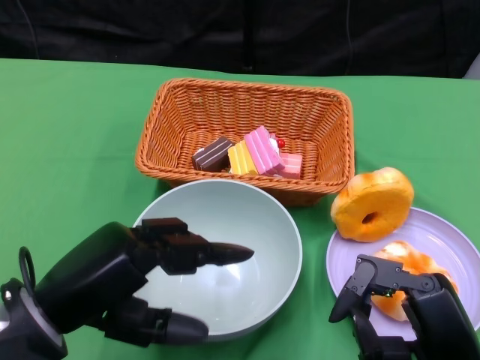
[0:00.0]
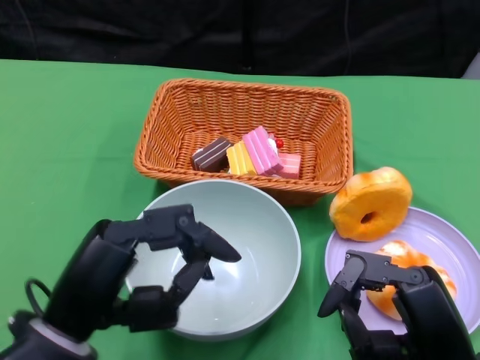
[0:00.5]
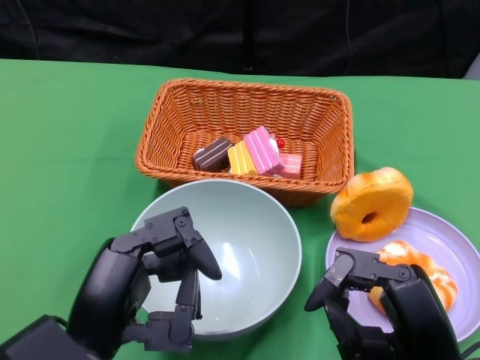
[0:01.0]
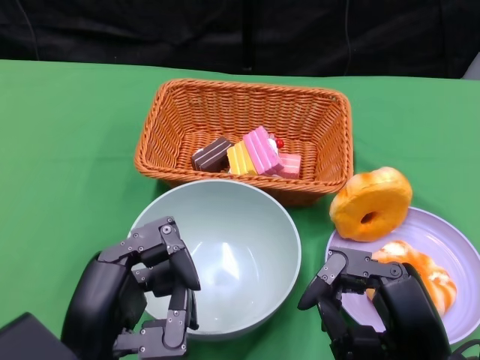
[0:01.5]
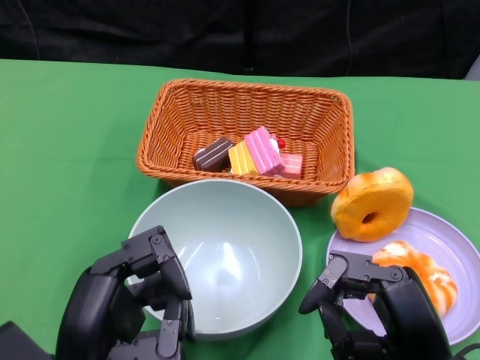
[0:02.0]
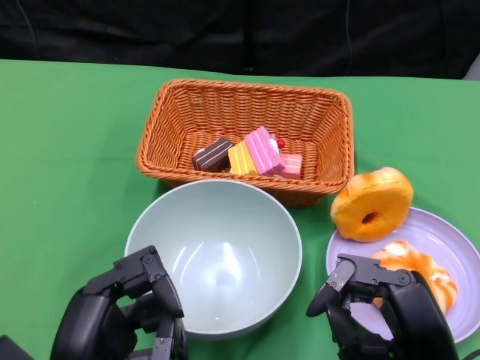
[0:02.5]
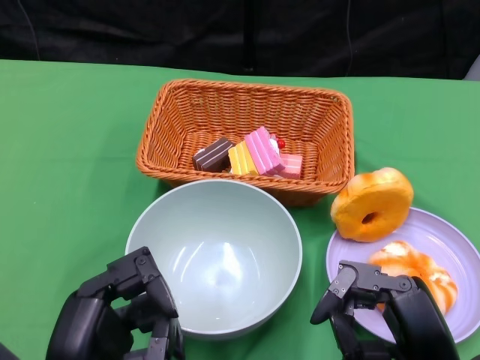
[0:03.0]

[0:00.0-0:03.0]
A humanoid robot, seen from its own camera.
0:00.0 to 0:01.5: The left hand changes place by approximately 5 cm.
0:01.5 to 0:03.0: The hands move only a little.

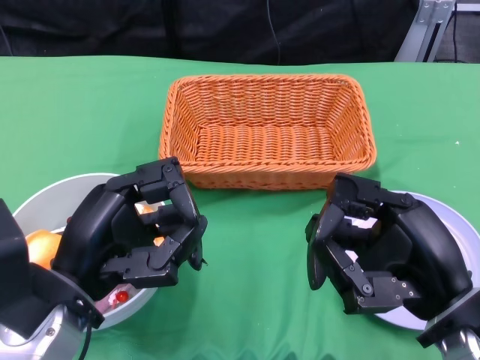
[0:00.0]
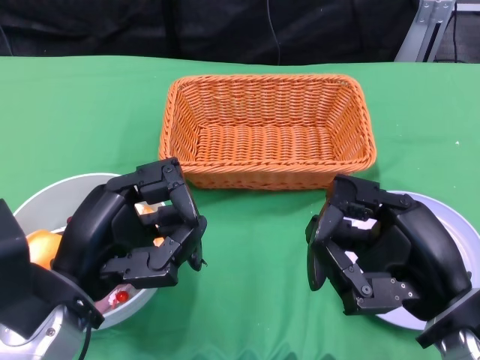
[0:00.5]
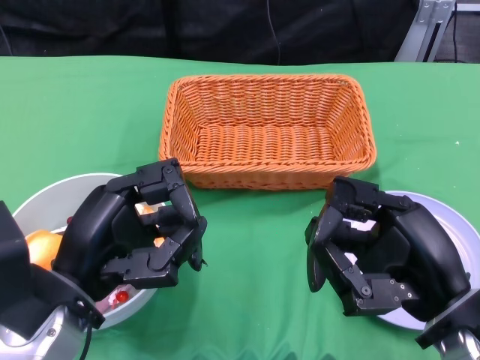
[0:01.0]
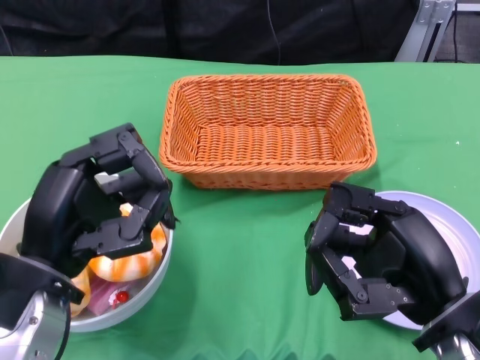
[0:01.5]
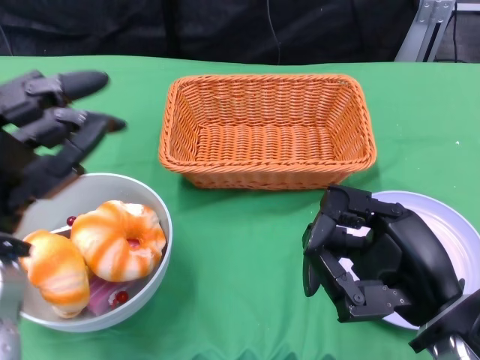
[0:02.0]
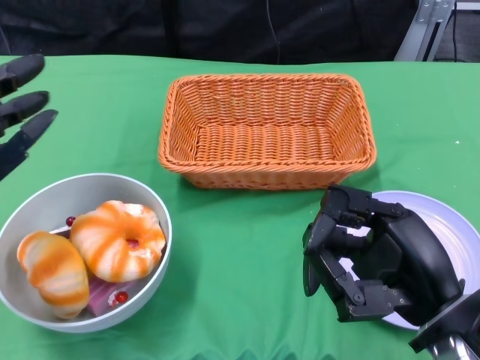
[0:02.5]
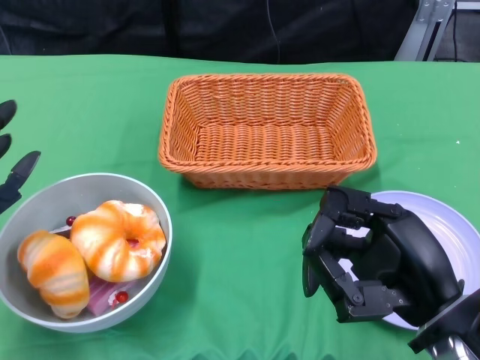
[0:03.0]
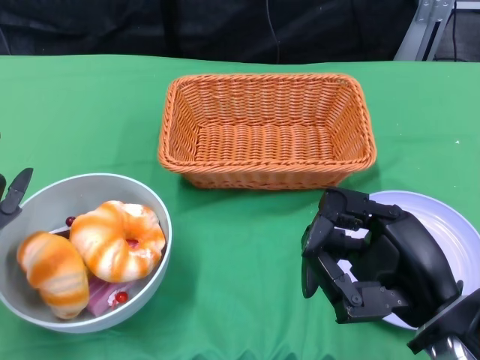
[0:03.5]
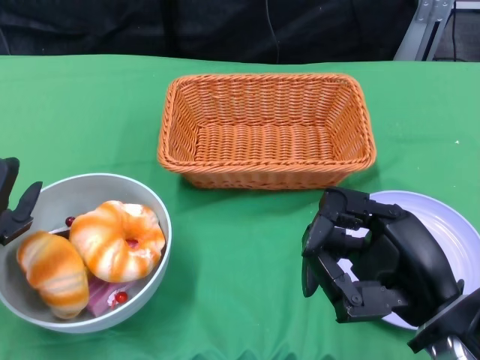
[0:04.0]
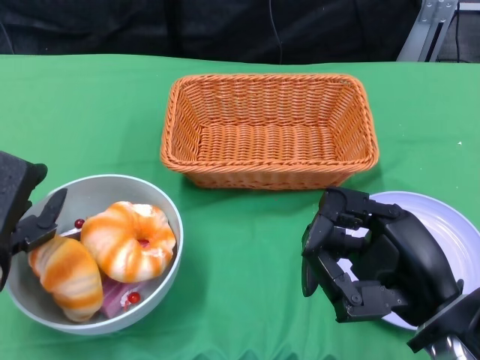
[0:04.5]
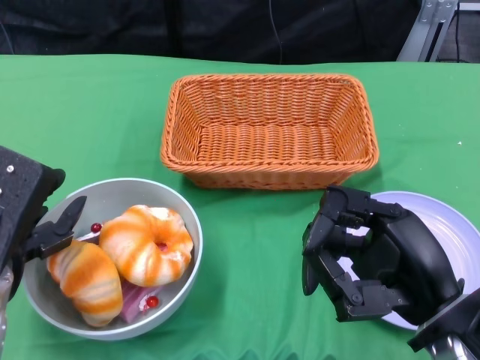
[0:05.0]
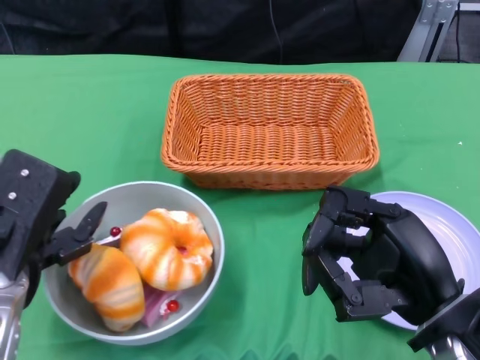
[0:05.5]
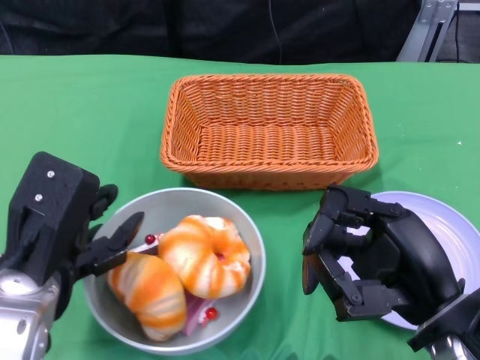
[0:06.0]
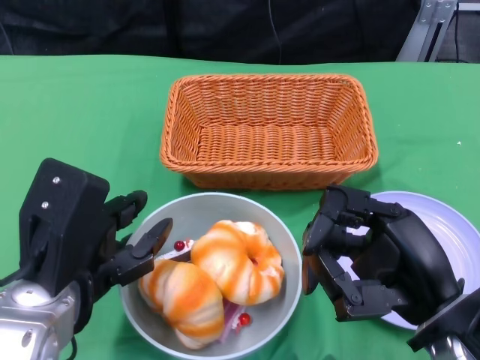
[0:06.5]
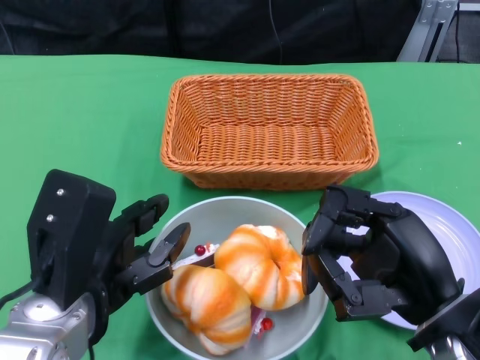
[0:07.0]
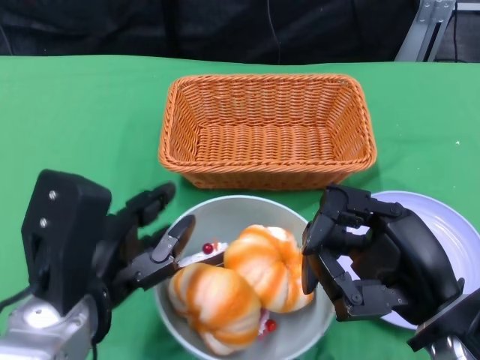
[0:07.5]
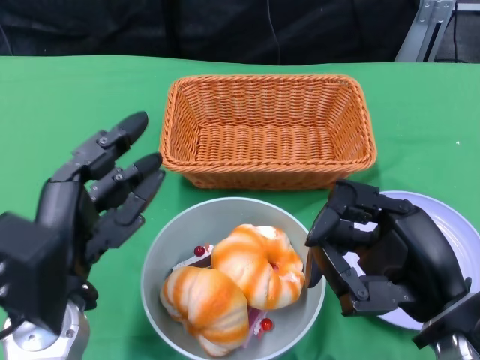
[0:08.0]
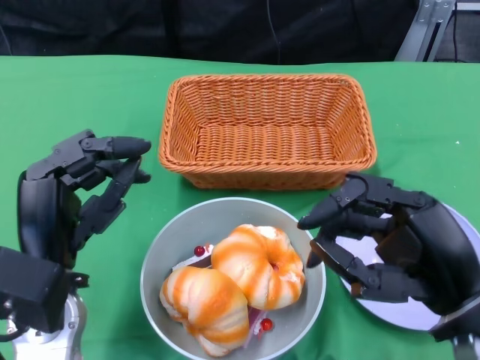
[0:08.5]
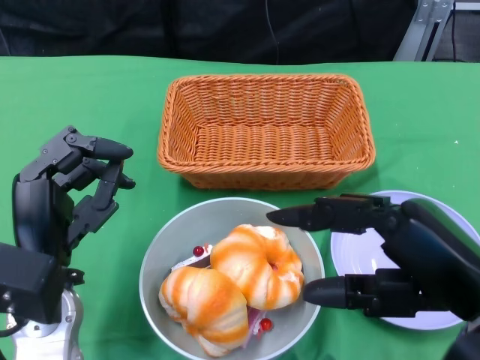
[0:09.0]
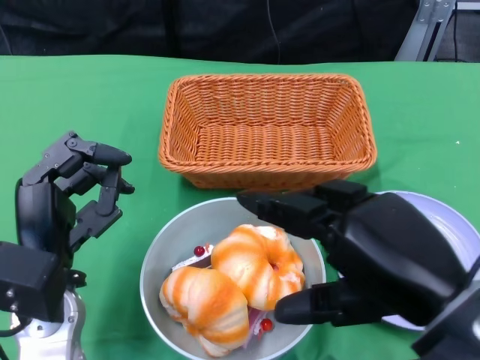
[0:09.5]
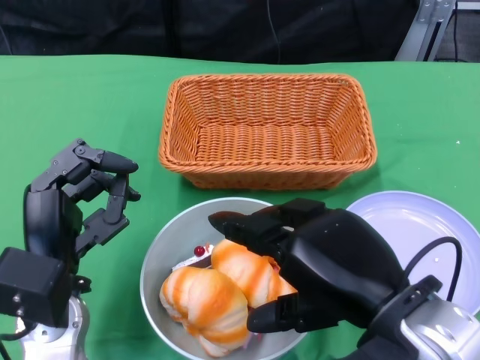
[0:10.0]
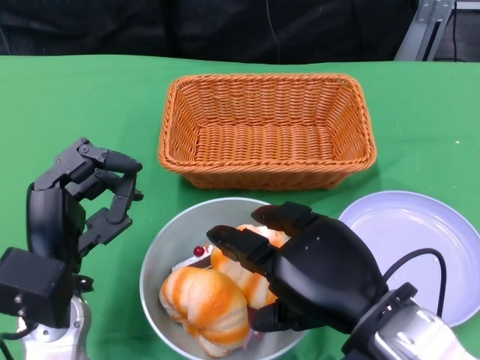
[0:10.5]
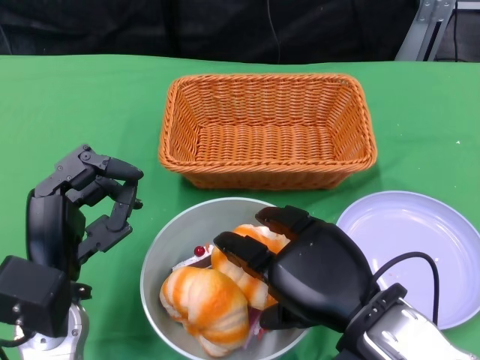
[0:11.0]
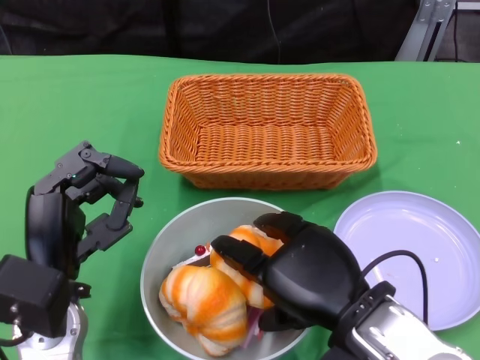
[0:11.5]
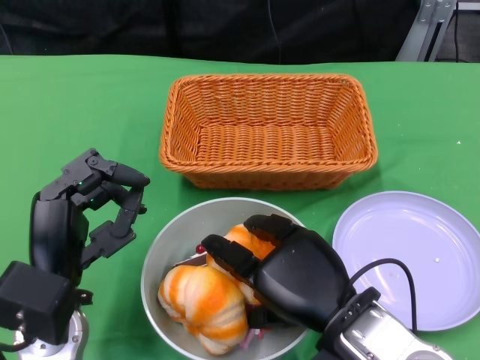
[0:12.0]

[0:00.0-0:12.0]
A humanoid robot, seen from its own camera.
Step, 0:00.0 to 0:08.0: Push the bowl to the center of the table using the left gripper.
0:02.0 to 0:04.0: The left hand shifts some 5 cm downward.
0:04.0 to 0:06.0: The left hand heads to the right, covering about 5 cm.
0:08.0 to 0:10.0: The right hand shifts by roughly 5 cm. Meanwhile the left hand is displaced downward by some 5 cm.
0:10.0 to 0:12.0: The right hand is displaced downward by roughly 10 cm.

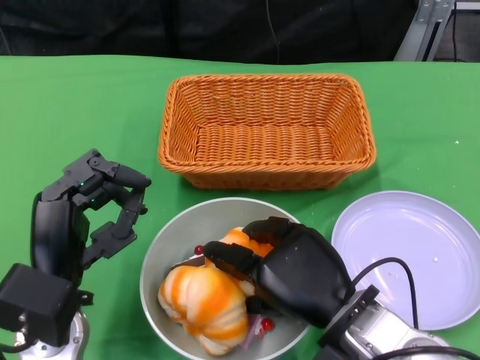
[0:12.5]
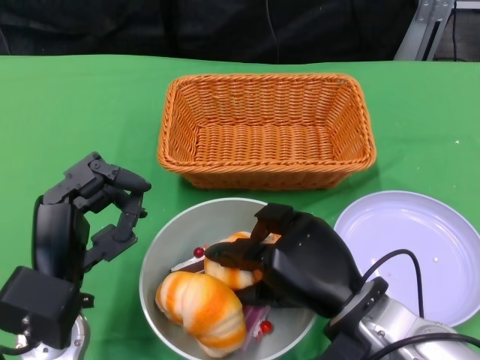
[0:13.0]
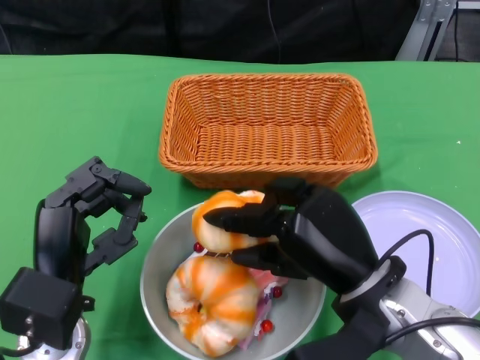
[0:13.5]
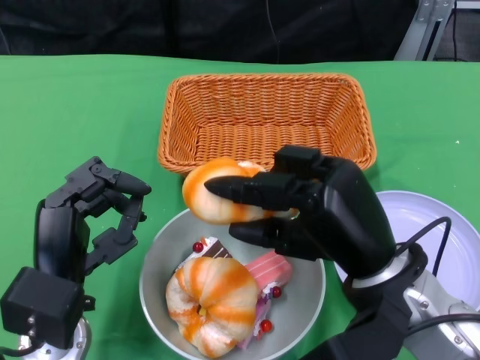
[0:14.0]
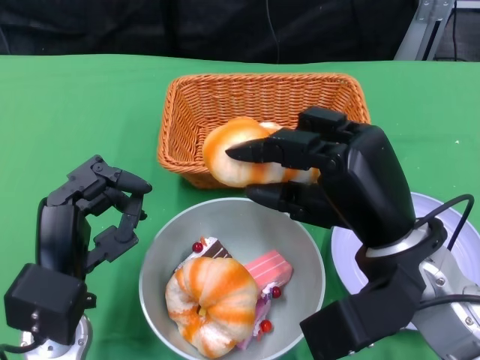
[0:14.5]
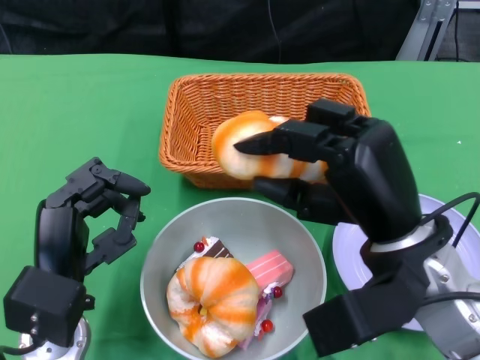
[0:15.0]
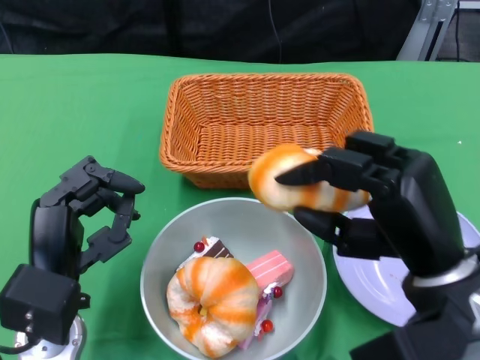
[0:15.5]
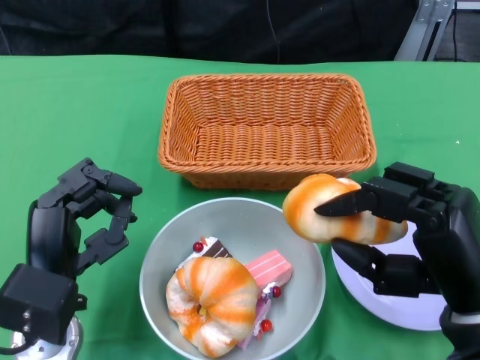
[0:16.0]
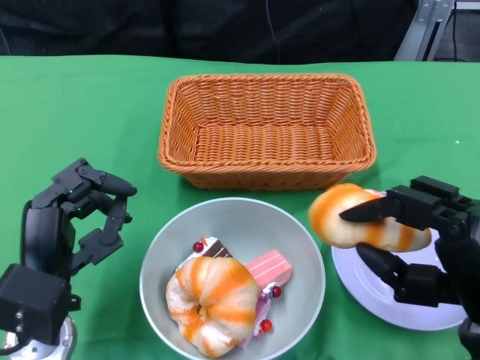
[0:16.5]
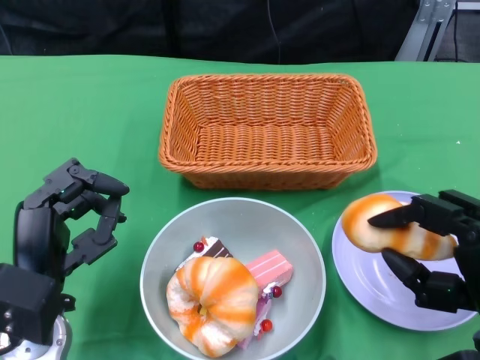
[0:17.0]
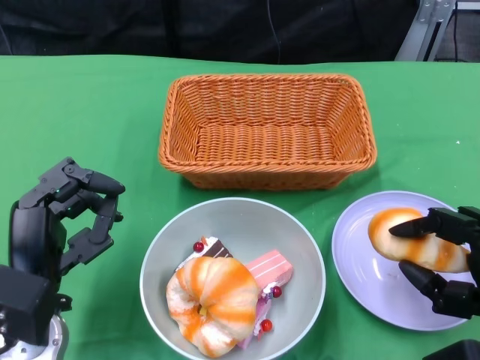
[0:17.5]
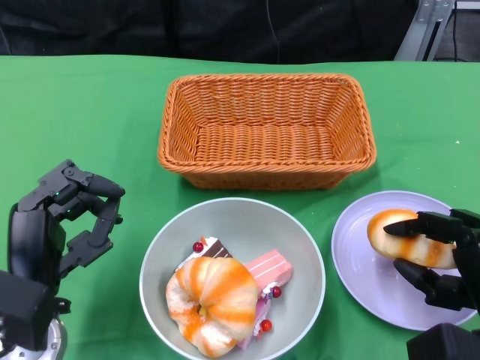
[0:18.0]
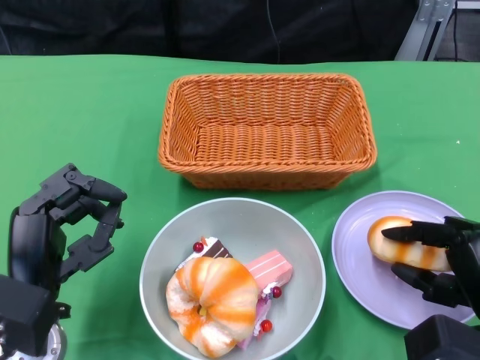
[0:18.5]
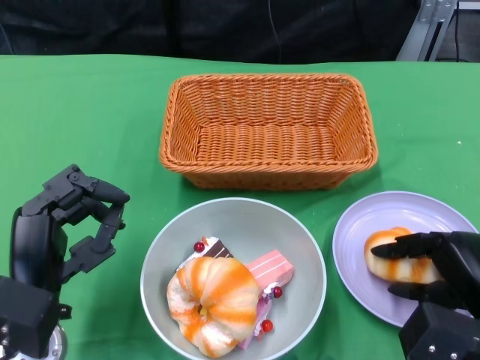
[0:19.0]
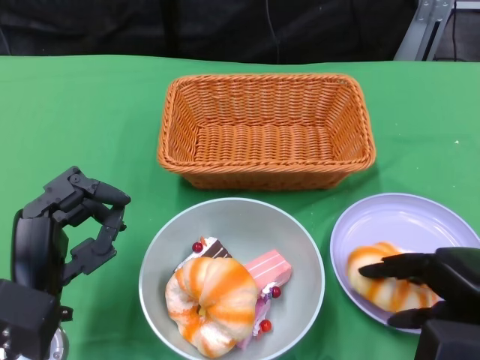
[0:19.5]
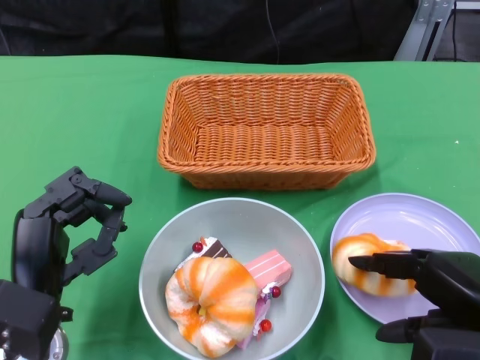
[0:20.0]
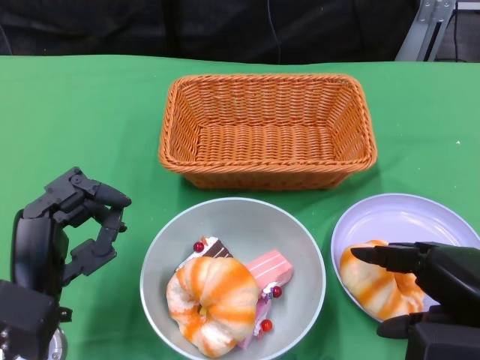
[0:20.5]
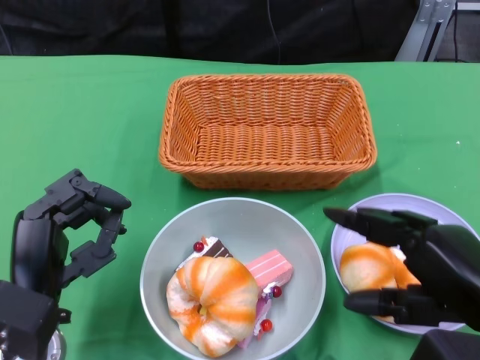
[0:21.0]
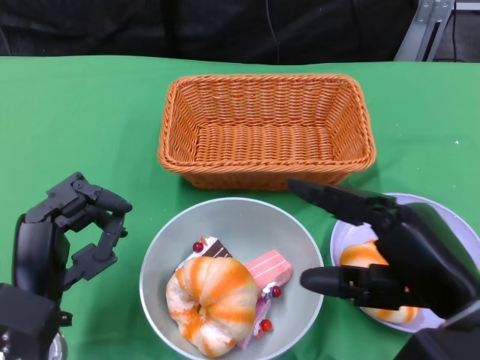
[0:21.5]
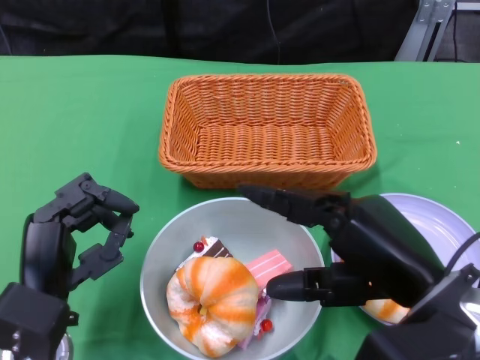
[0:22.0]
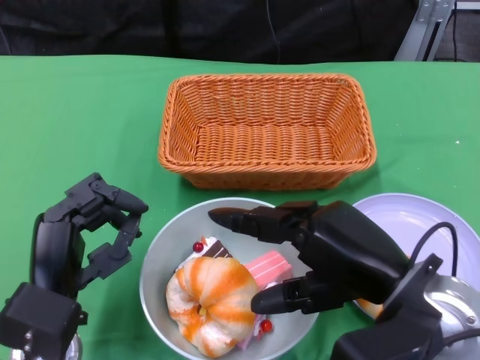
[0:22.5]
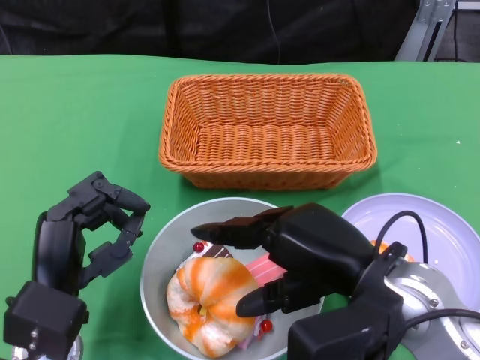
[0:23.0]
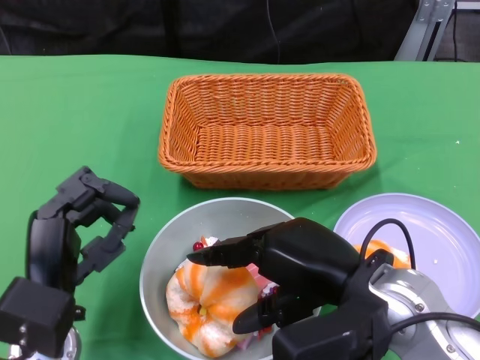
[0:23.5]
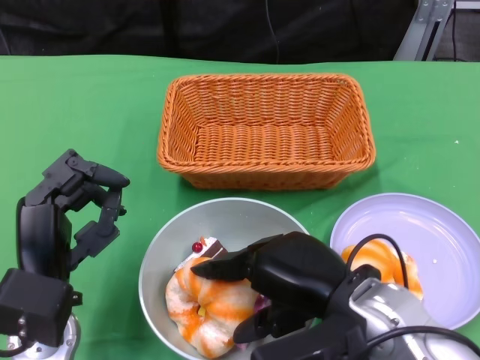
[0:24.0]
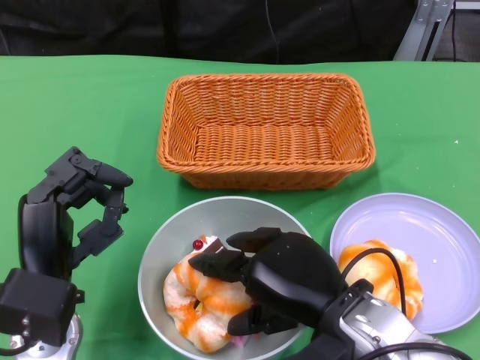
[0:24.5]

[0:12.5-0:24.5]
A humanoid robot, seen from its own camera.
Step, 0:12.5 to 0:20.5: Pick up the bread with the right gripper and place it on the plate.
0:12.5 to 0:14.5: The right hand is displaced upward by roughly 10 cm.
0:14.5 to 0:16.5: The right hand travels to the right and backward by some 10 cm.
0:16.5 to 0:18.5: The right hand goes roughly 10 cm downward.
0:18.5 to 0:20.5: The right hand shifts about 10 cm upward.
0:20.5 to 0:22.5: The right hand heads to the left, covering roughly 10 cm.
0:22.5 to 0:24.5: The right hand shifts about 5 cm to the left.
